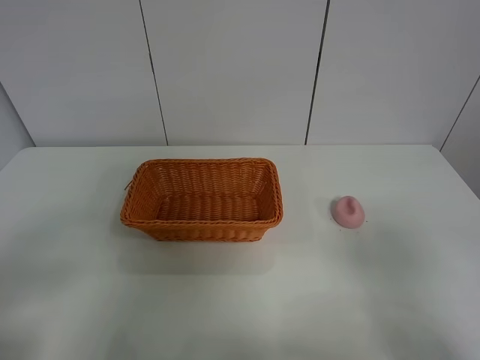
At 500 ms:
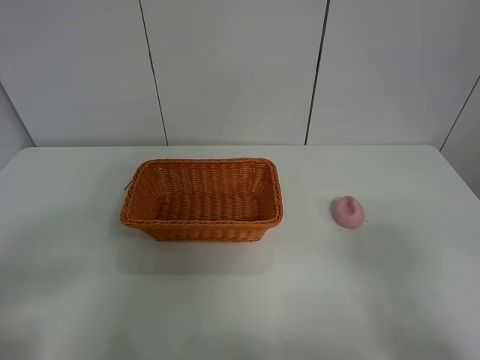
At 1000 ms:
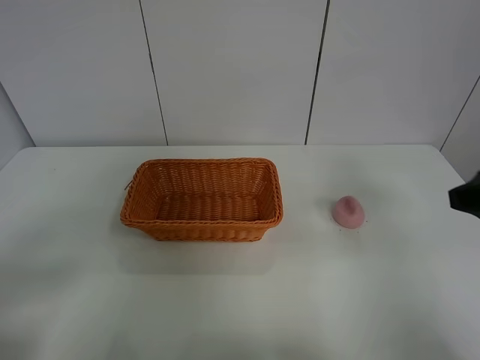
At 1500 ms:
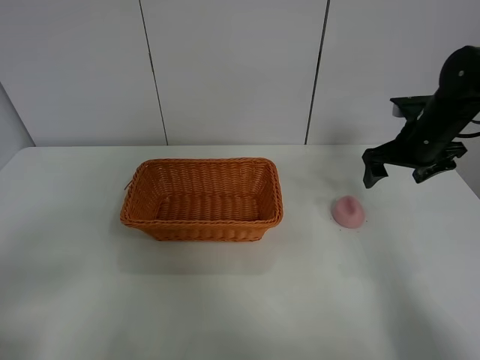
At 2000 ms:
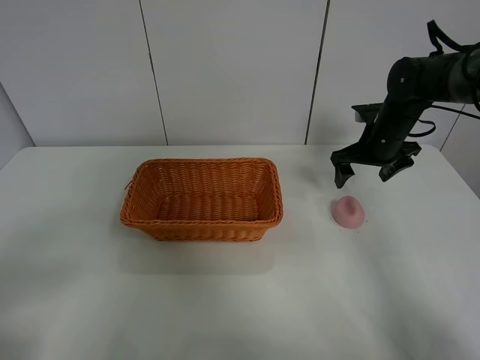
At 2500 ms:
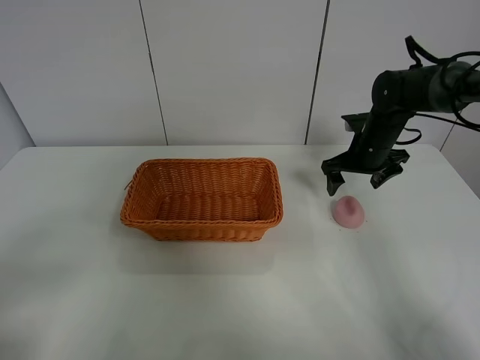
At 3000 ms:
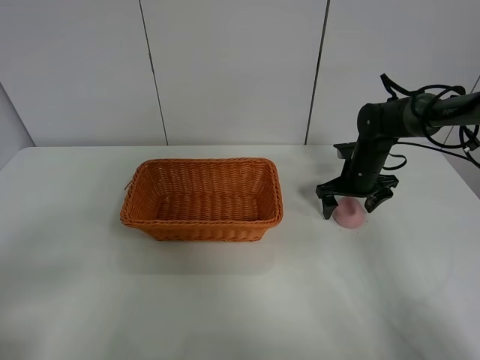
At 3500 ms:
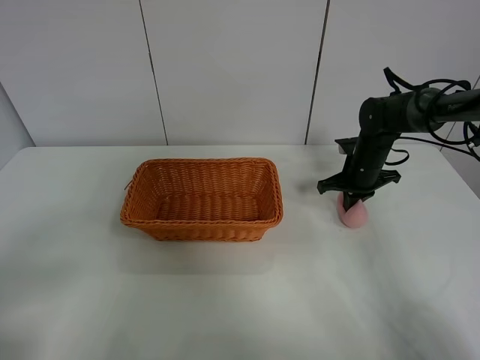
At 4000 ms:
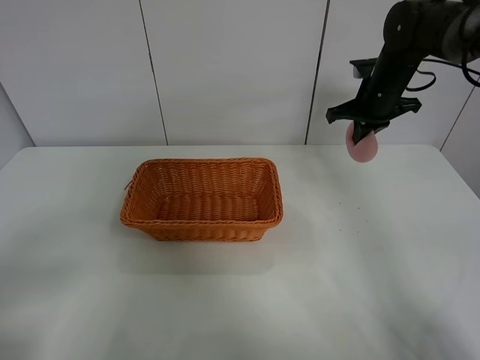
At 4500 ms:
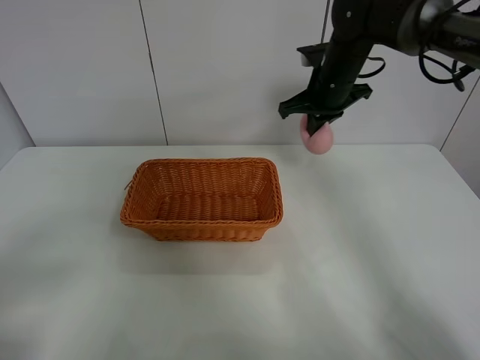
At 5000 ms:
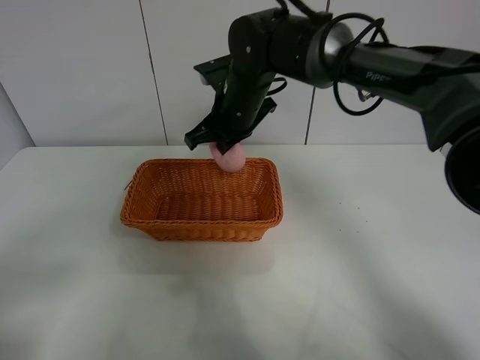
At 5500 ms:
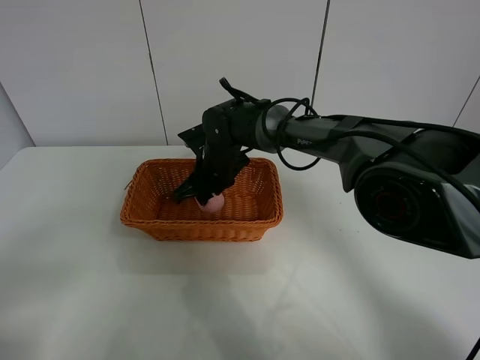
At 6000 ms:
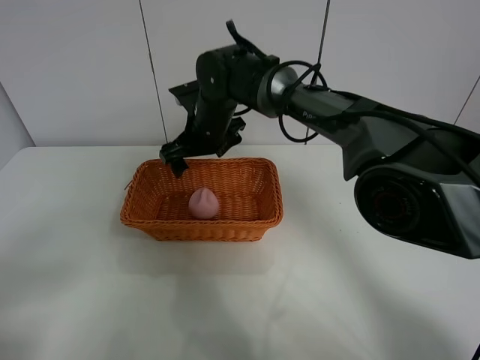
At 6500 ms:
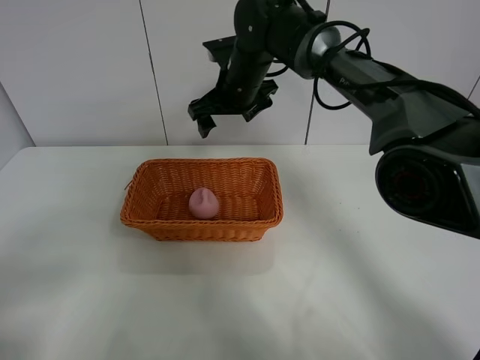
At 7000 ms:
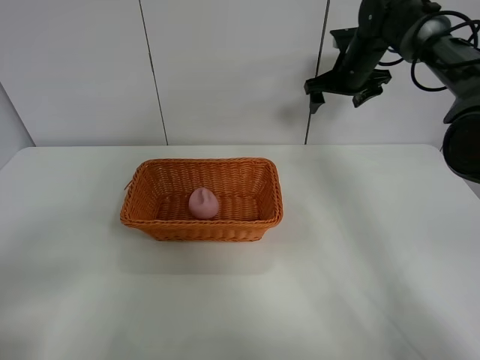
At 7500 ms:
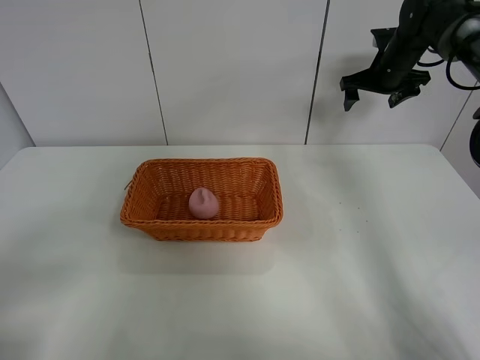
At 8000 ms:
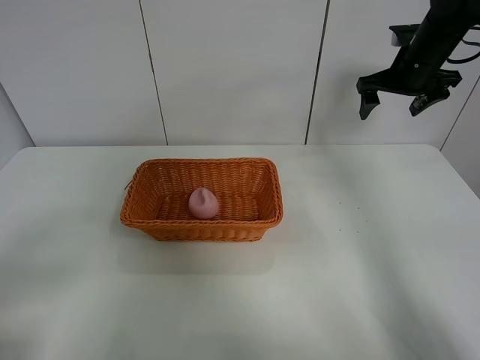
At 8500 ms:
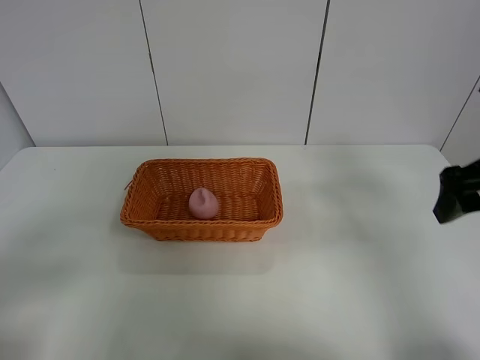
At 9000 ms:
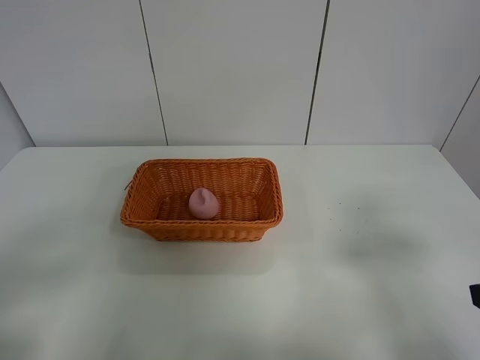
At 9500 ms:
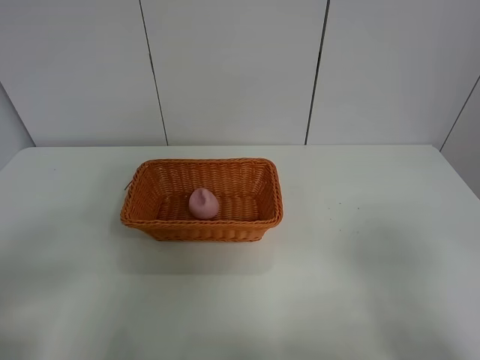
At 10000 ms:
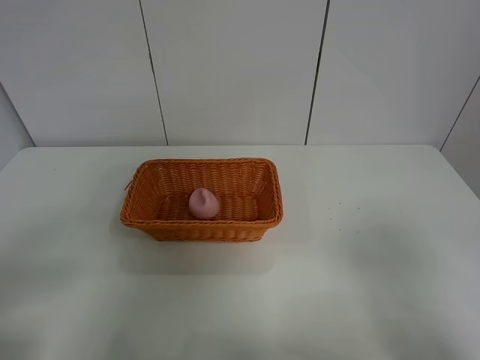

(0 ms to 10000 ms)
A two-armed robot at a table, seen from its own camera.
Step, 0 ms - 3500 ms: Grasp the peach with right gripper.
Step, 4000 ms - 6000 ms: Place the peach in the basket with right gripper.
0 ms - 2000 ms: The right gripper shifts about 40 cm forward.
2000 ms - 4000 ms: The right gripper shifts approximately 5 cm upward, and closes up.
4000 ms - 6000 ms: The right gripper is displaced to the left by roughly 30 cm, and opens its fingers.
6000 ms - 8000 ms: The right gripper moves to the right, approximately 30 cm.
8000 ms - 10000 ms: The right gripper heads backward, covering about 40 cm.
